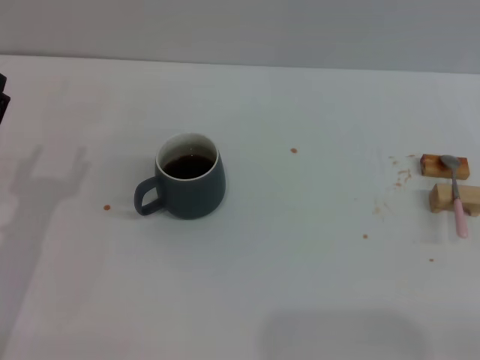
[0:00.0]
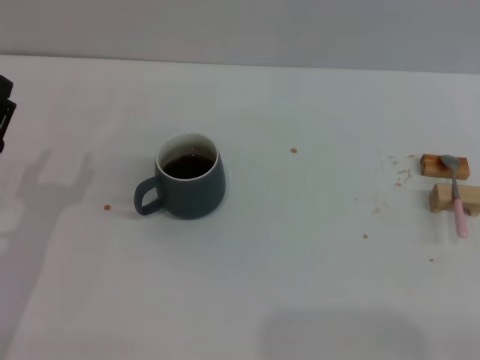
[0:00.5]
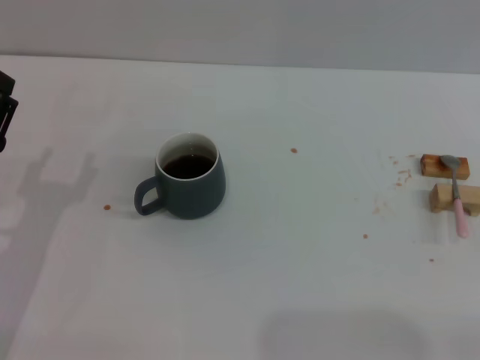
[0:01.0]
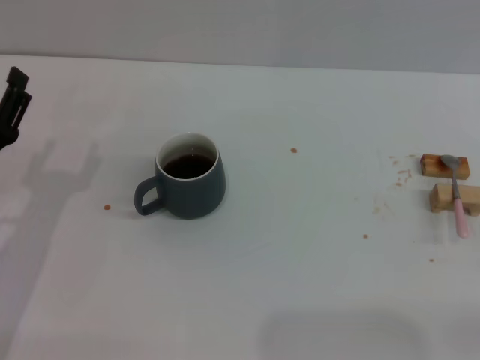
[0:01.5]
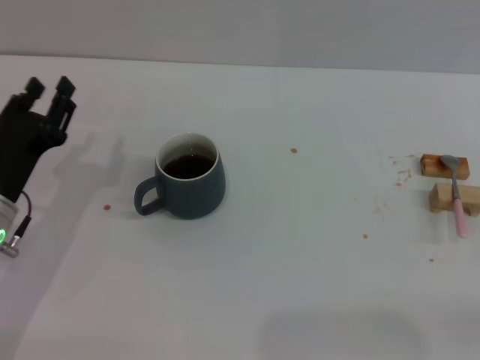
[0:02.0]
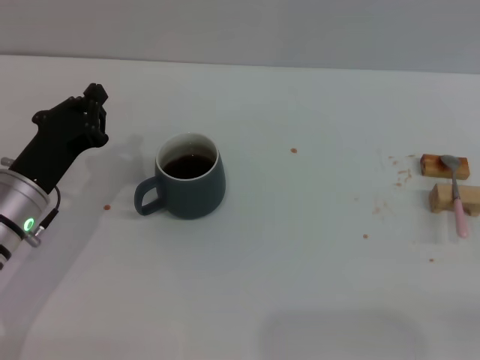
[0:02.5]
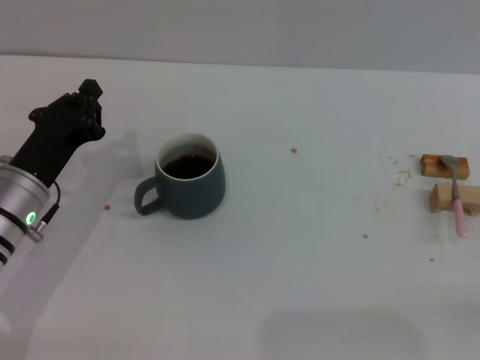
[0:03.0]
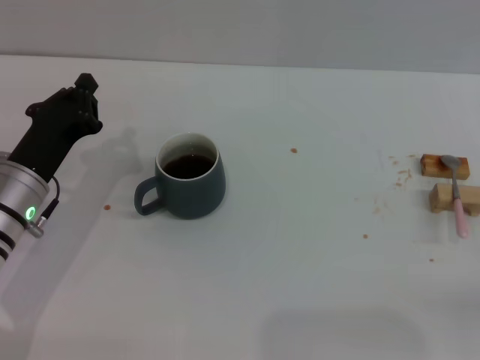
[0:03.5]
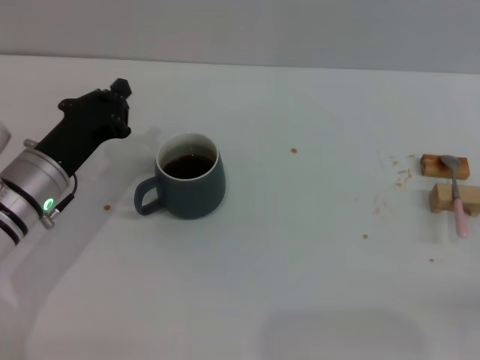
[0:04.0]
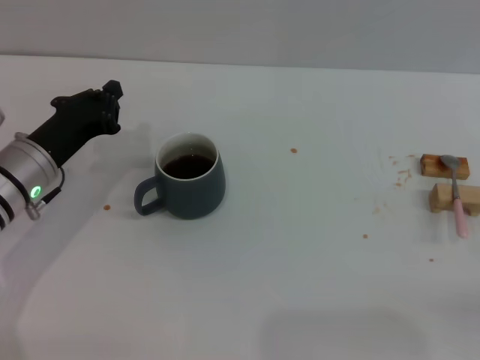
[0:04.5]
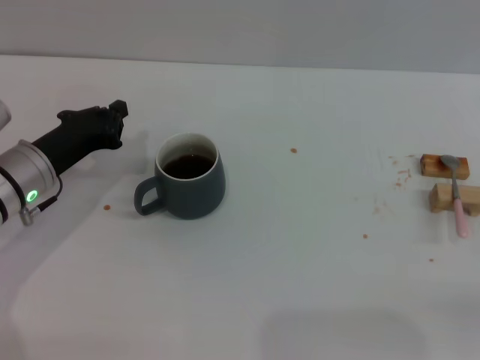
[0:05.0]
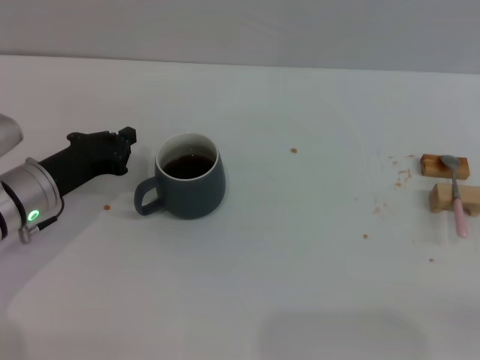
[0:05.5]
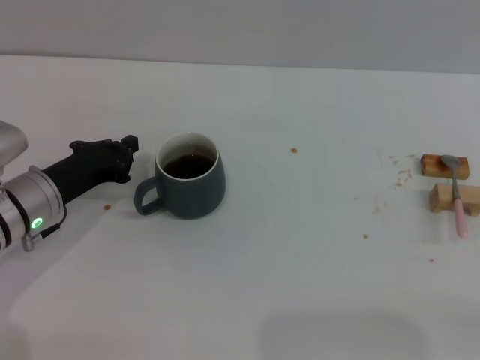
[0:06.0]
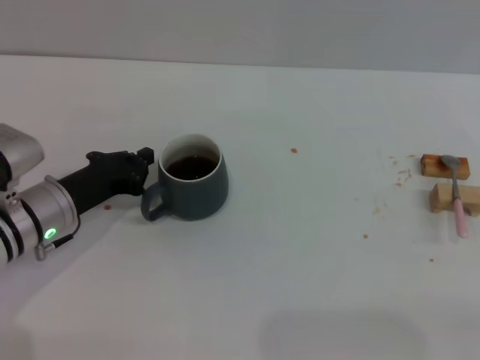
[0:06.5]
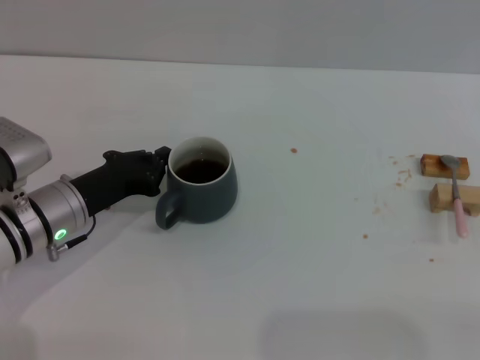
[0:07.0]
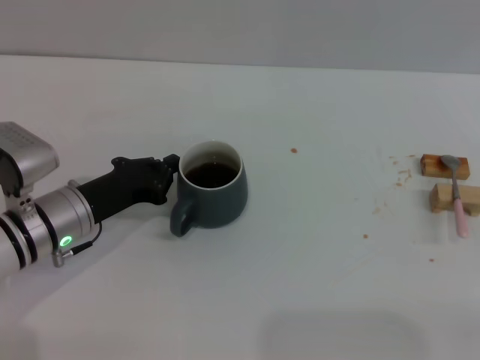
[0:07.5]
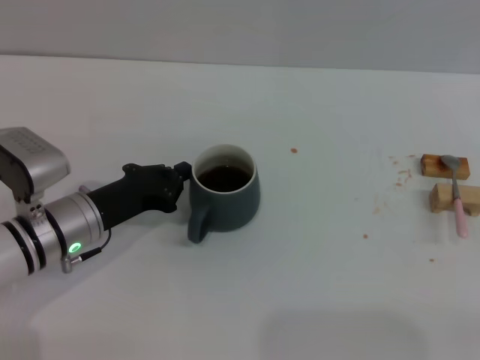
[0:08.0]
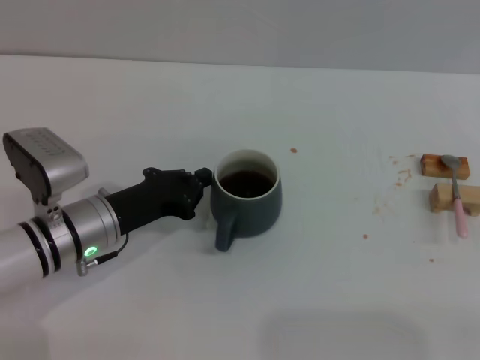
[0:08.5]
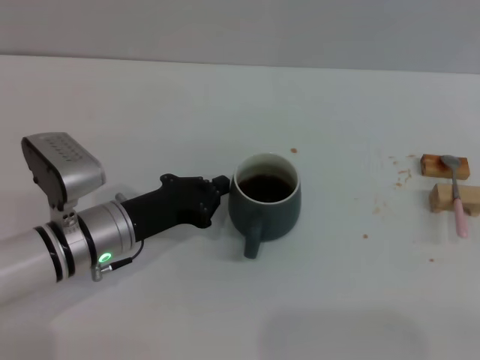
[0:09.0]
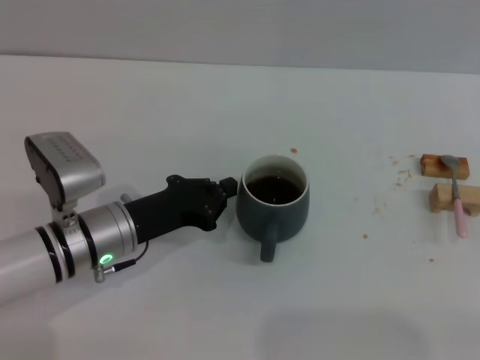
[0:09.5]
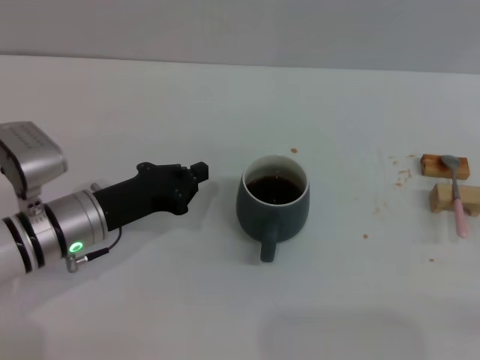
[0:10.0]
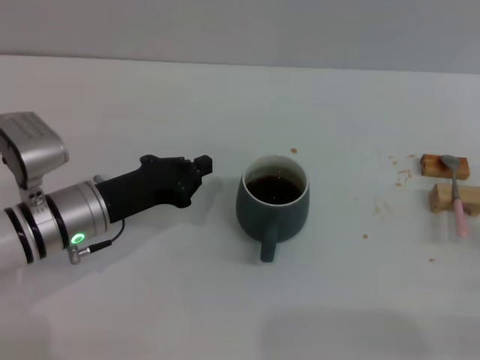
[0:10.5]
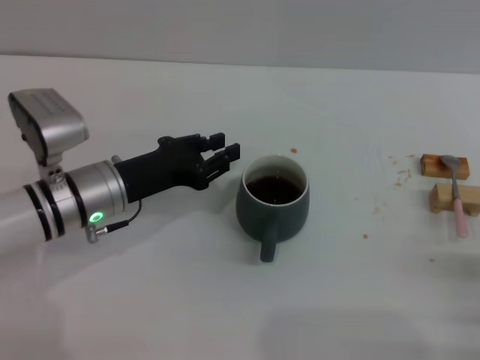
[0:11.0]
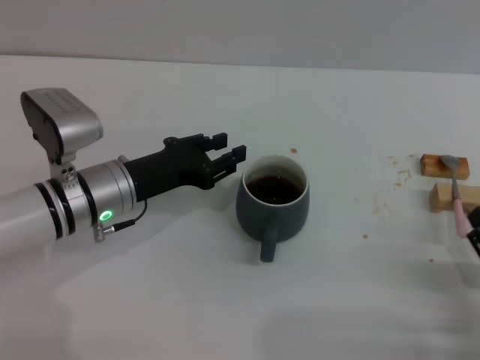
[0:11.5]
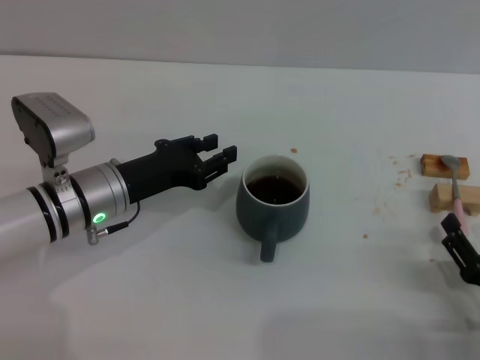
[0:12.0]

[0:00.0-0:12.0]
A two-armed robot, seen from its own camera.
Task of the whole recording: Move the grey cup to the center, lift the pink spoon, stir it three times in the cup, and put the spoon into the cup.
Step, 0.0 to 10.0 s: Move the cup with coffee to the center of view with the left gripper.
0.0 to 2.0 s: The grippers stay close to where they were, moving slightly.
2.0 to 4.0 s: The left gripper ends up some 5 cm from where it was, and closes.
4.0 to 6.0 s: The grippers move only a little.
6.0 to 8.0 s: There are only small adjustments of the grippers.
8.0 to 10.0 s: The grippers make only small movements.
10.0 to 12.0 s: The left gripper opens up, while the right gripper travels to the left by approximately 10 cm.

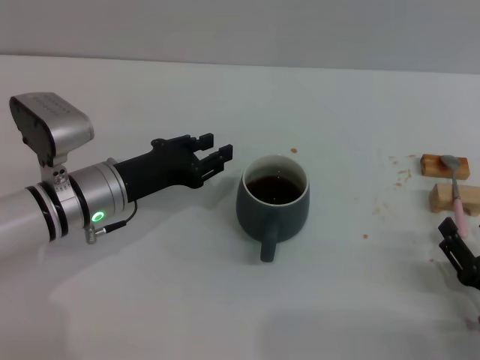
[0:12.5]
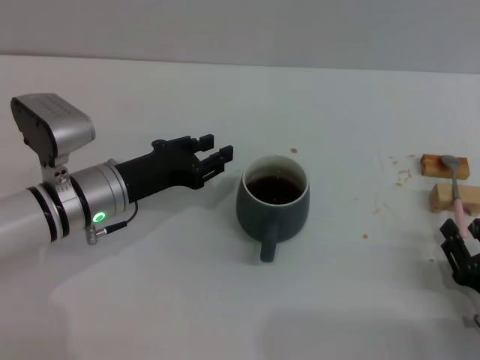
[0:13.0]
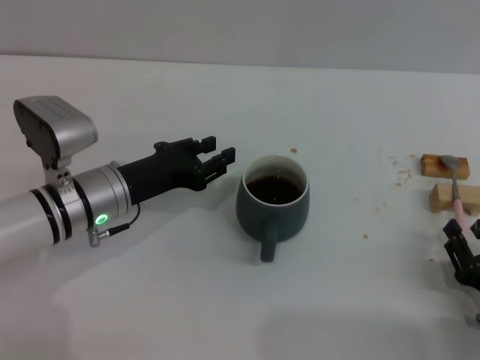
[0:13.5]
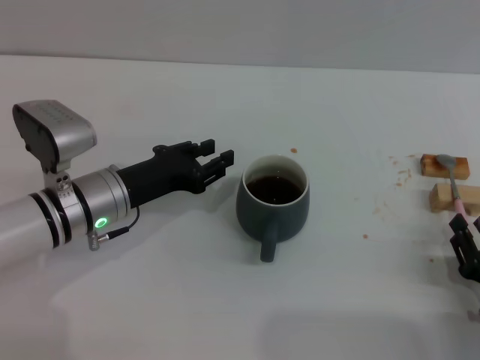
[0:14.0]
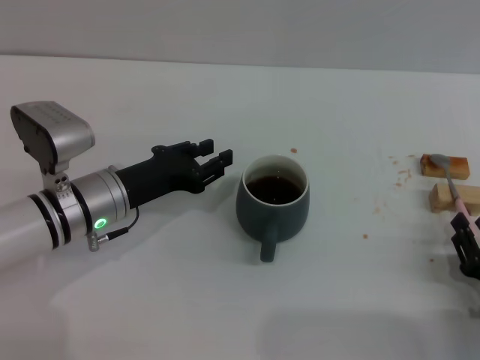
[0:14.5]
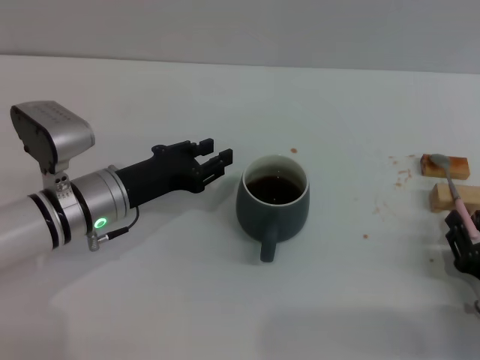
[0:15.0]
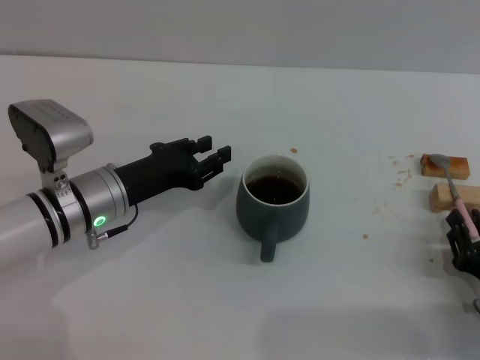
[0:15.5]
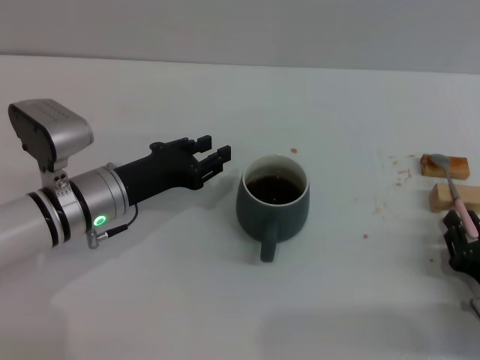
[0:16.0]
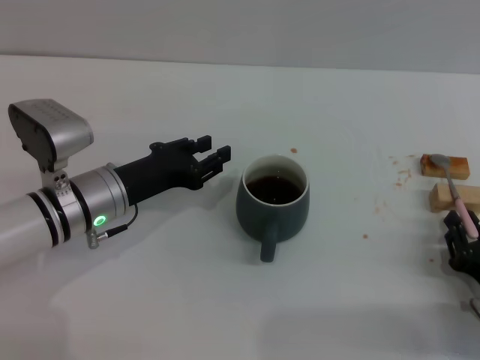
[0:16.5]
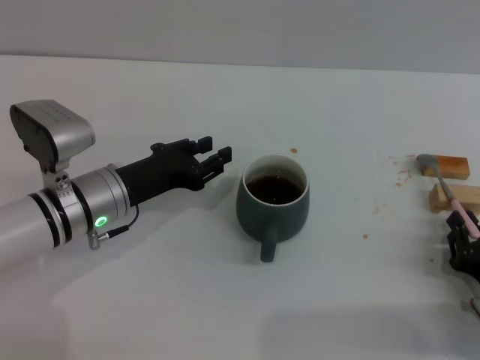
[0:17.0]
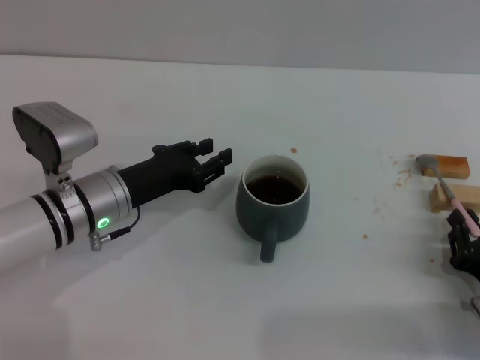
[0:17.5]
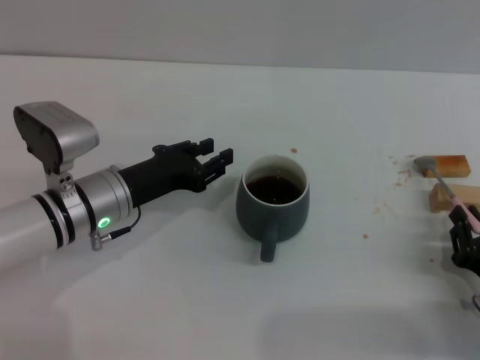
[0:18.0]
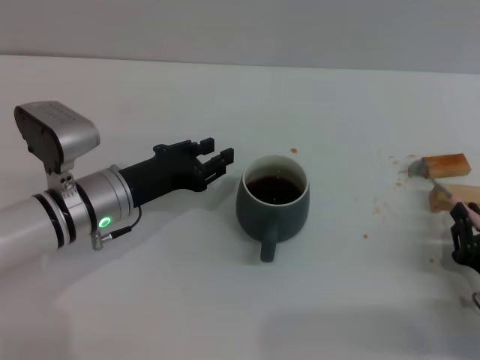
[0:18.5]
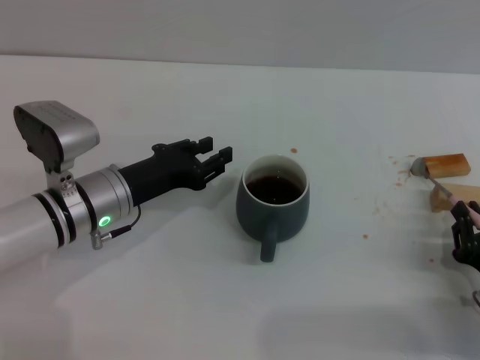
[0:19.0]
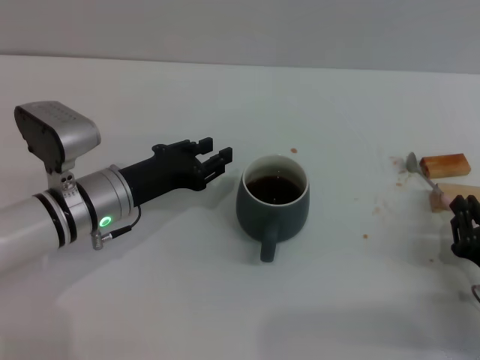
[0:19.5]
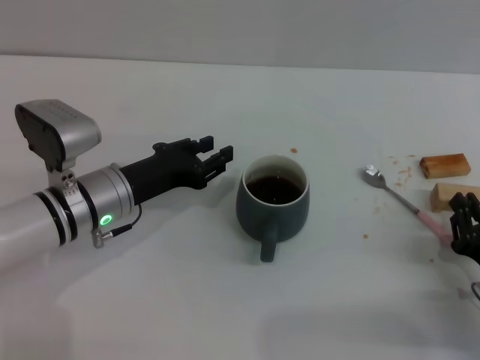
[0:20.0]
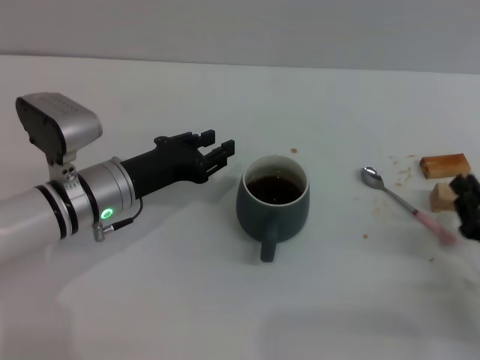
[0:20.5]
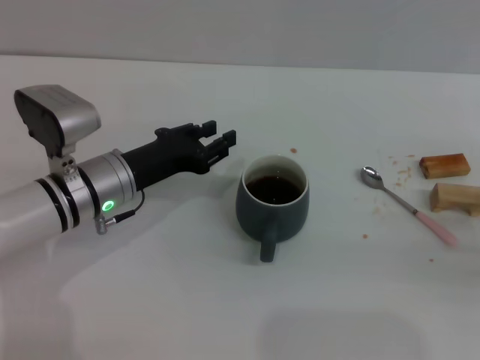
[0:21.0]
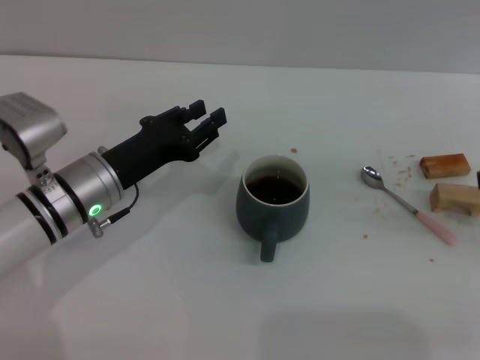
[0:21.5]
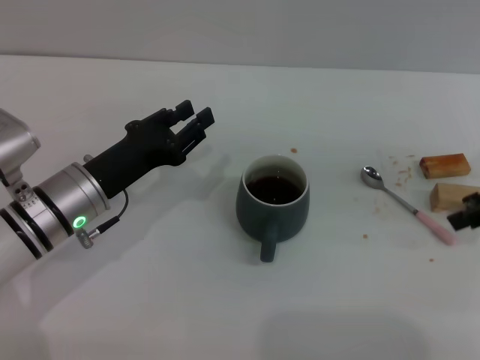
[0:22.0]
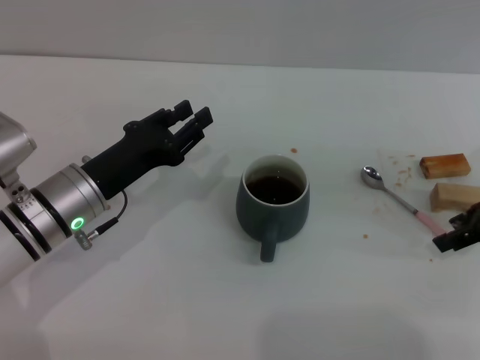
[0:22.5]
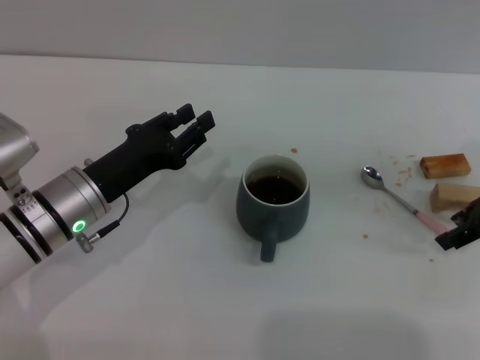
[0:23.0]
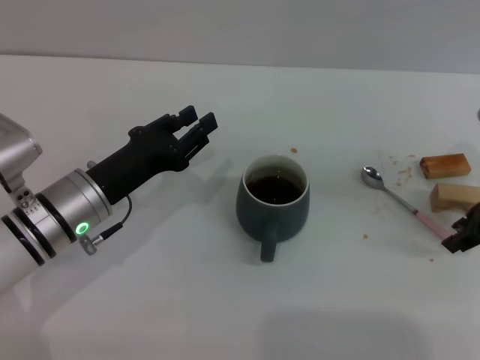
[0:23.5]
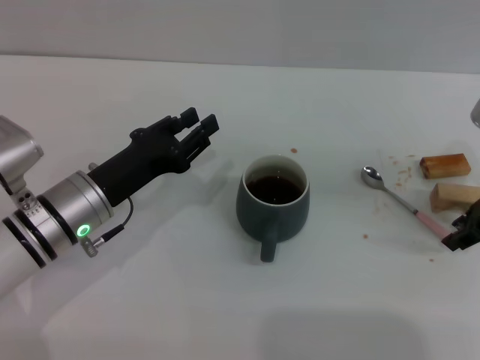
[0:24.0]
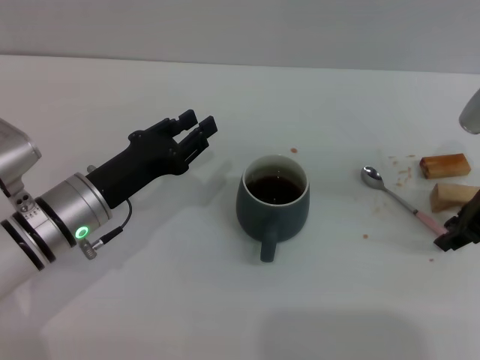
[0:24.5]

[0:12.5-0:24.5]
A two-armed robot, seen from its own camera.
Task of the whole recording: Move the grey cup to the center, lift the pink spoon, stir it three times in the cup, and put the spoon into the cup.
12.5 to 14.5 s: The right gripper closes.
14.5 to 18.5 s: The two grippers keep their place.
18.5 to 20.5 s: The grippers move only a little.
20.5 to 22.5 s: The right gripper is displaced forward and upward by about 20 cm, and opens its fingers.
22.5 to 24.5 s: The grippers move only a little.

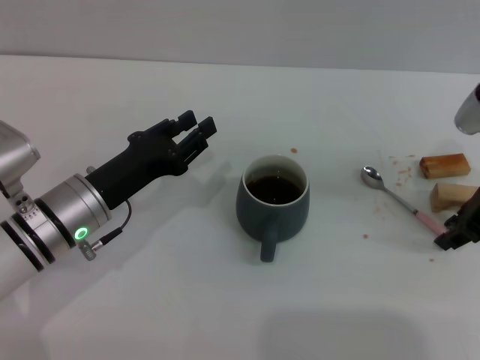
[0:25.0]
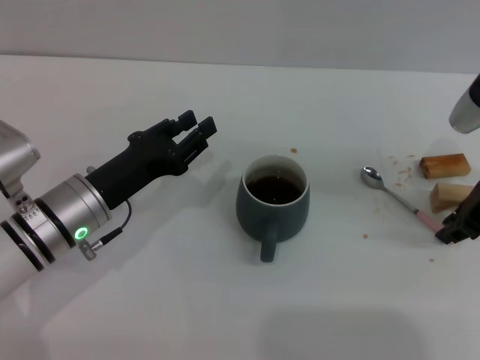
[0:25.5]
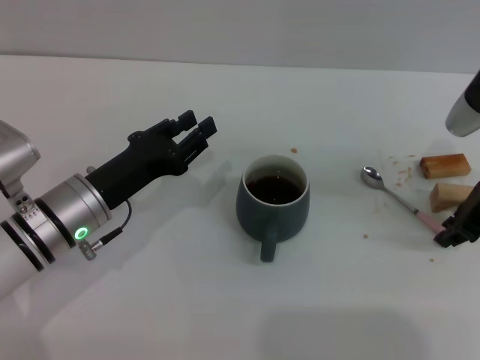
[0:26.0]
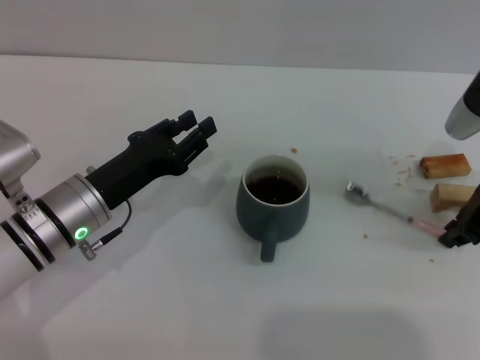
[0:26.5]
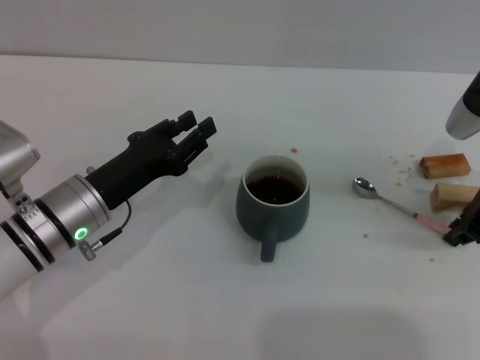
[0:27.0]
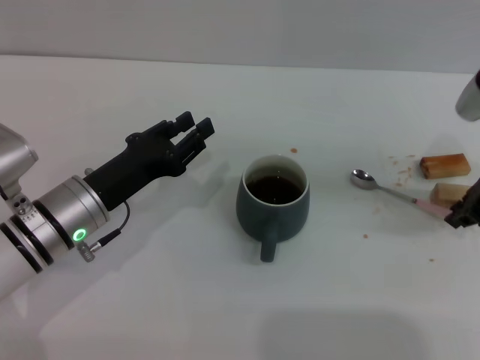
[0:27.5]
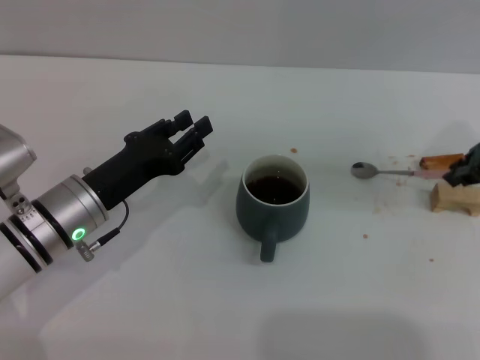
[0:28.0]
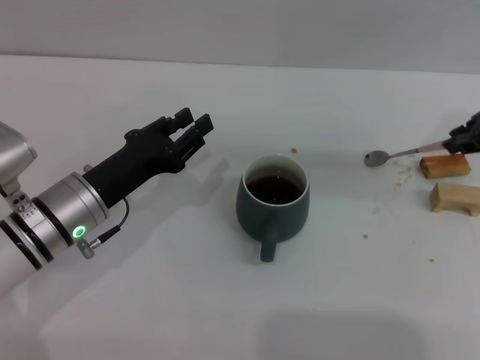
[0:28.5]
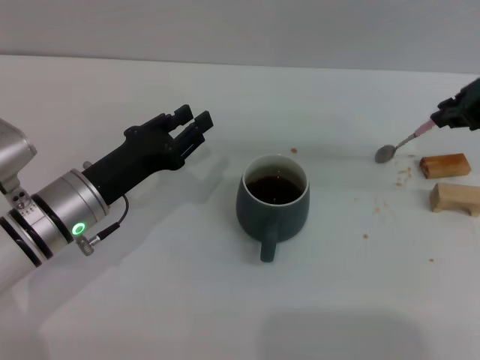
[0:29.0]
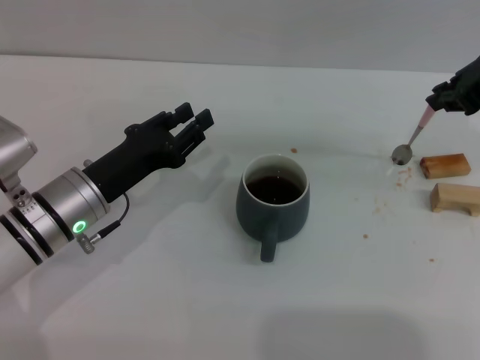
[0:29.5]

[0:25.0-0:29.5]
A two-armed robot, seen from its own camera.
Task of the whole recording: Move the grey cup to the center, lift the pink spoon, stir it three times in the cup, and put the spoon into the cup.
25.0 to 27.0 s: Neither gripper changes place.
27.0 to 29.5 s: The right gripper heads upward, covering about 10 cm.
